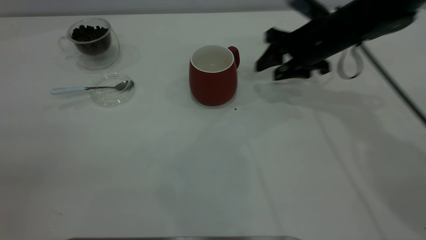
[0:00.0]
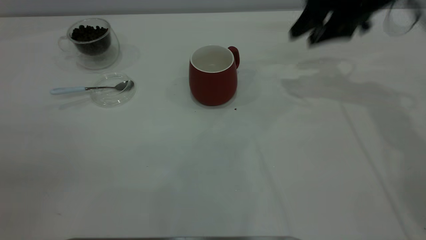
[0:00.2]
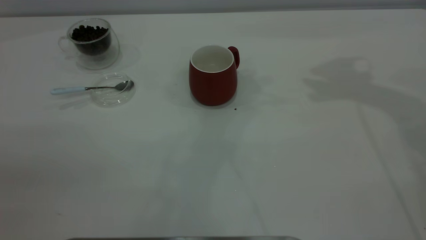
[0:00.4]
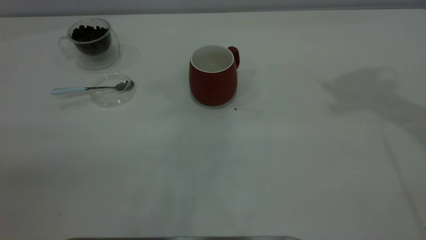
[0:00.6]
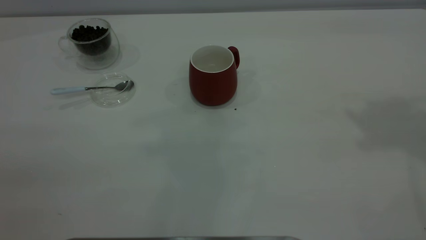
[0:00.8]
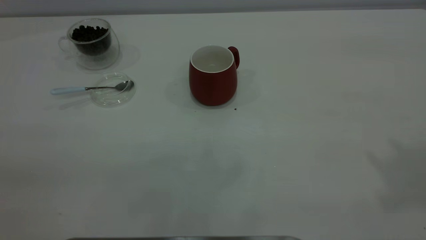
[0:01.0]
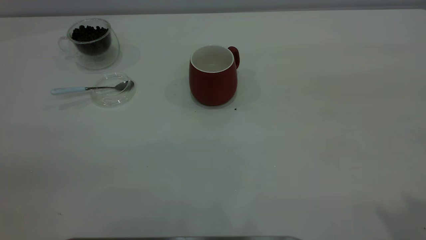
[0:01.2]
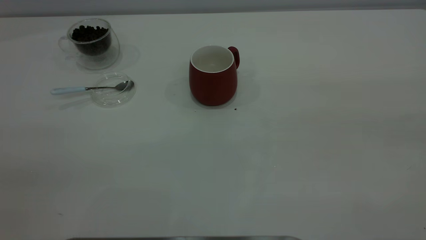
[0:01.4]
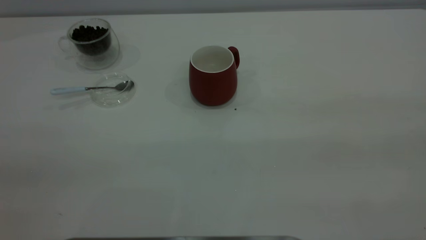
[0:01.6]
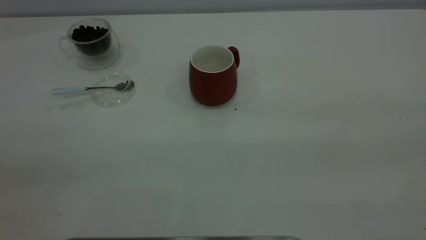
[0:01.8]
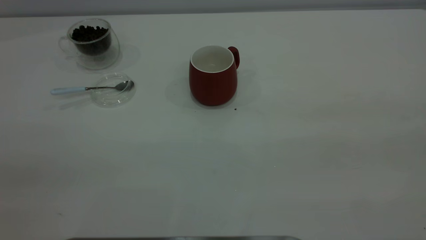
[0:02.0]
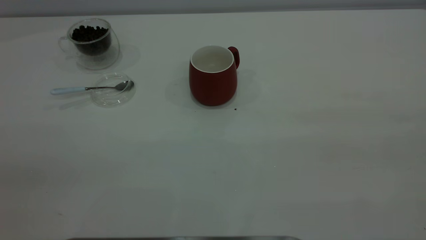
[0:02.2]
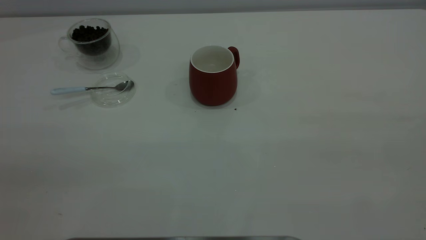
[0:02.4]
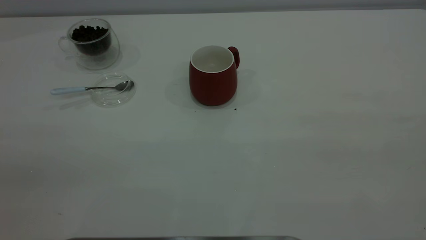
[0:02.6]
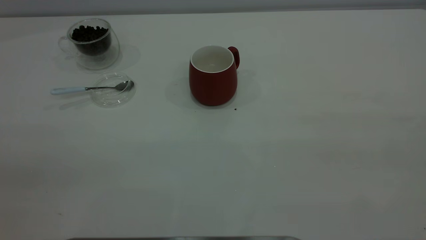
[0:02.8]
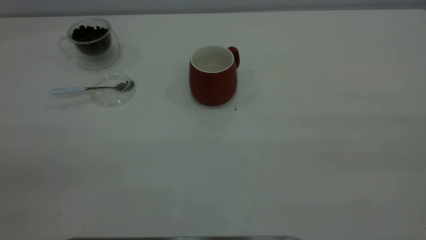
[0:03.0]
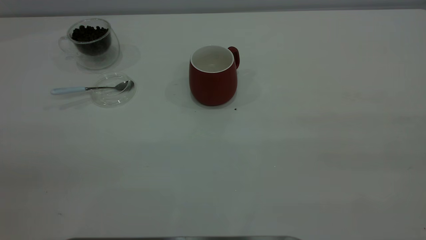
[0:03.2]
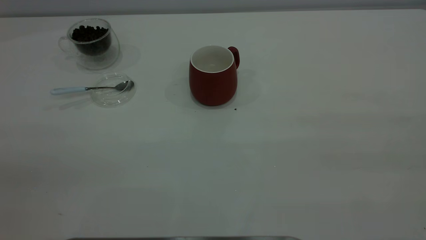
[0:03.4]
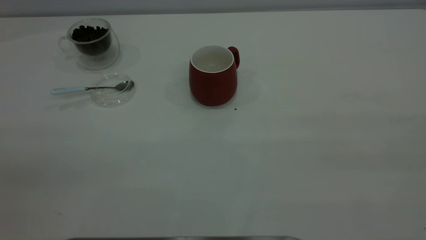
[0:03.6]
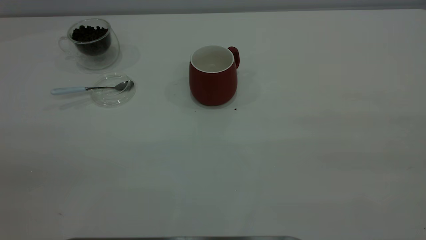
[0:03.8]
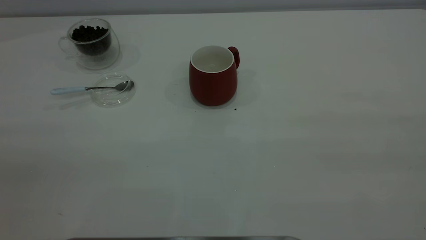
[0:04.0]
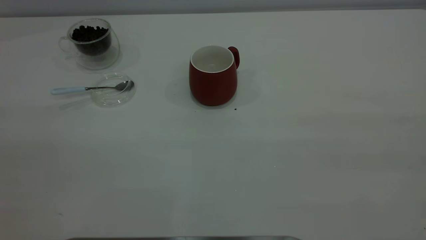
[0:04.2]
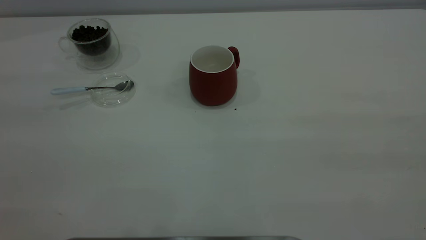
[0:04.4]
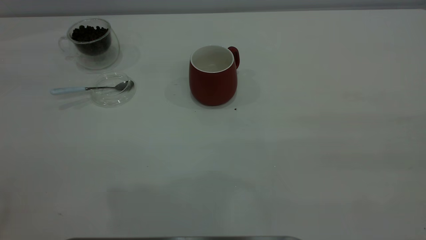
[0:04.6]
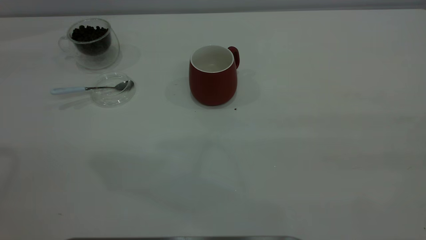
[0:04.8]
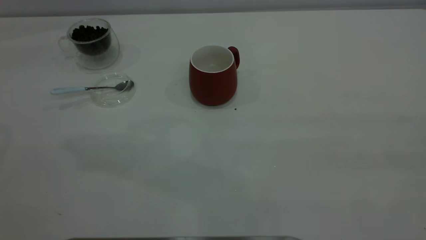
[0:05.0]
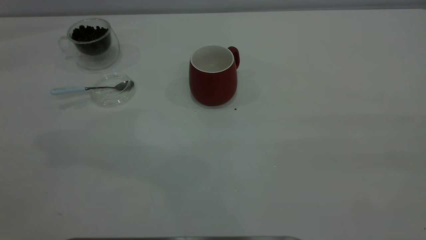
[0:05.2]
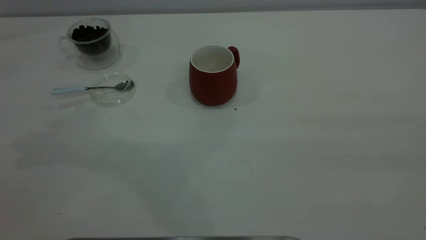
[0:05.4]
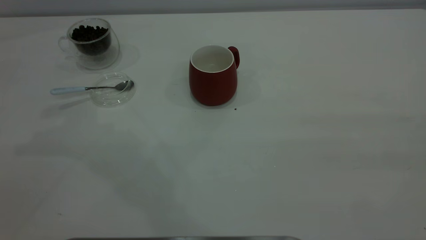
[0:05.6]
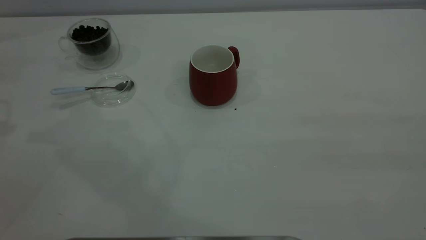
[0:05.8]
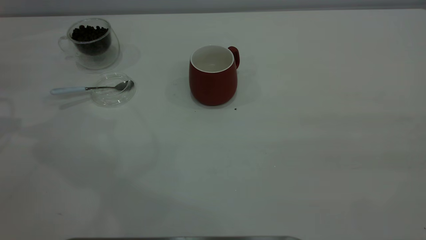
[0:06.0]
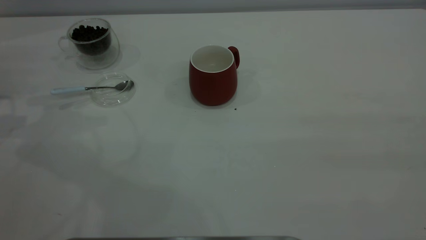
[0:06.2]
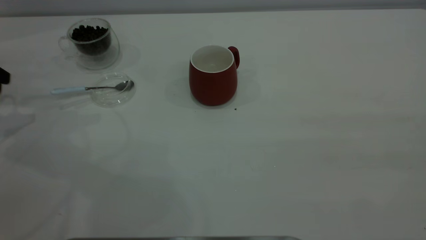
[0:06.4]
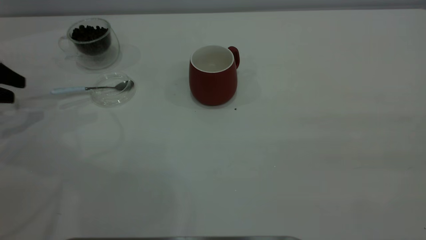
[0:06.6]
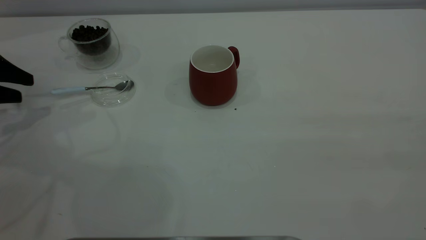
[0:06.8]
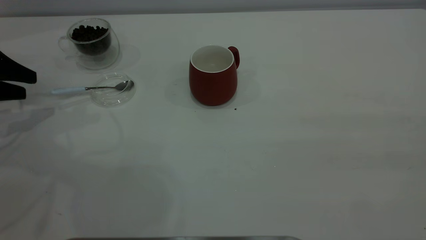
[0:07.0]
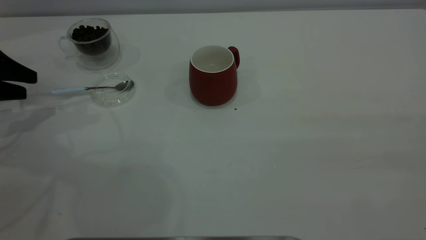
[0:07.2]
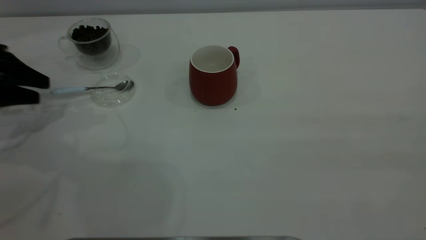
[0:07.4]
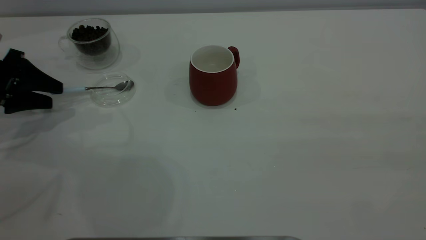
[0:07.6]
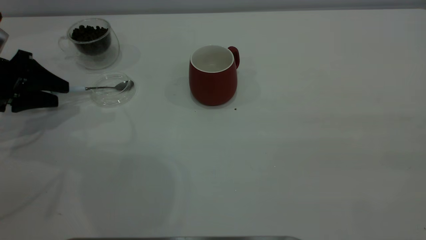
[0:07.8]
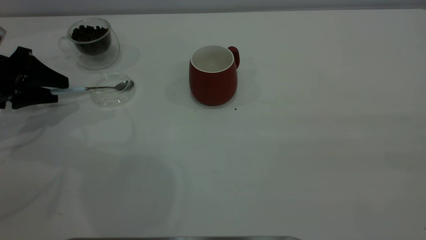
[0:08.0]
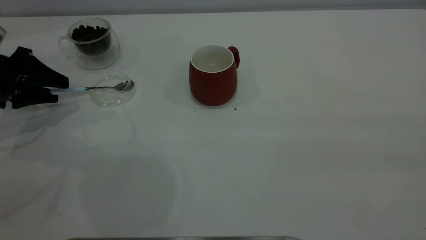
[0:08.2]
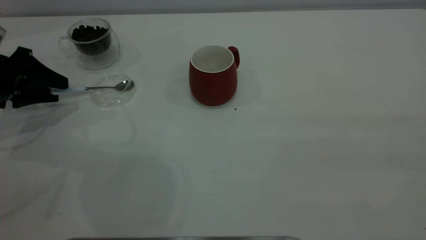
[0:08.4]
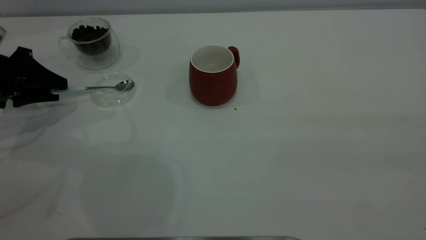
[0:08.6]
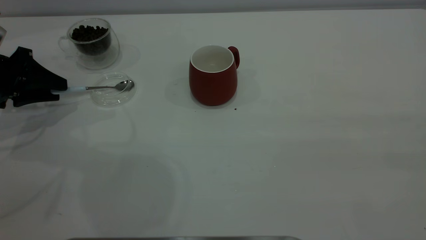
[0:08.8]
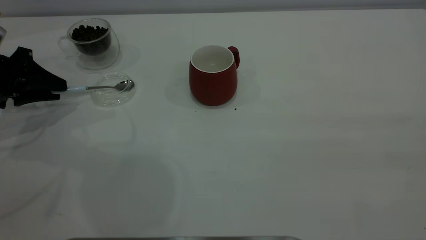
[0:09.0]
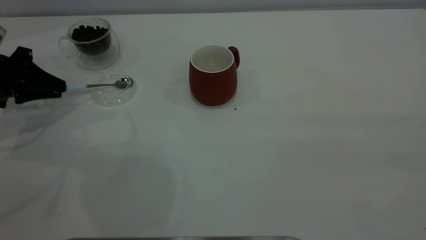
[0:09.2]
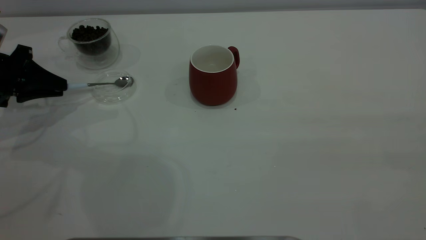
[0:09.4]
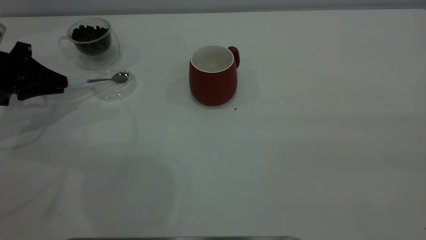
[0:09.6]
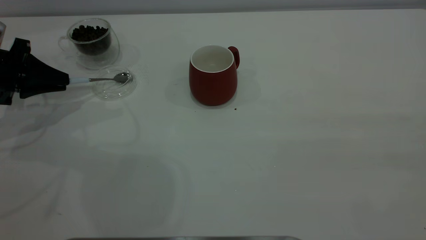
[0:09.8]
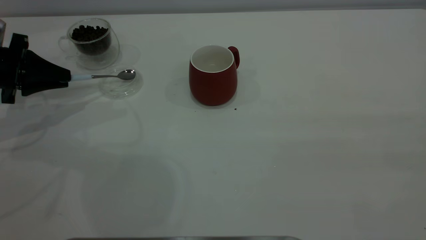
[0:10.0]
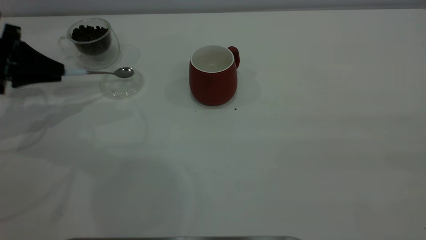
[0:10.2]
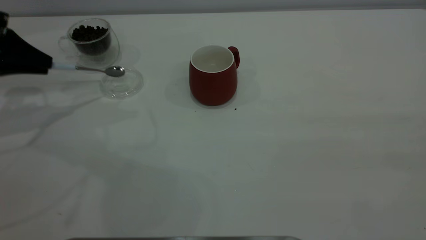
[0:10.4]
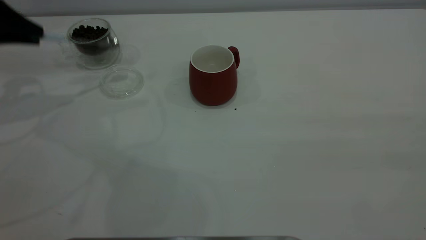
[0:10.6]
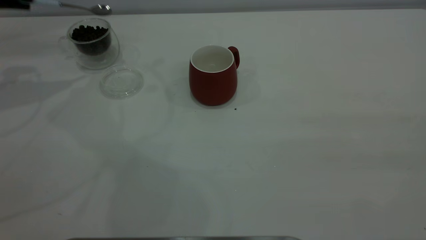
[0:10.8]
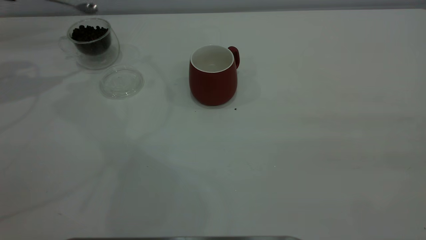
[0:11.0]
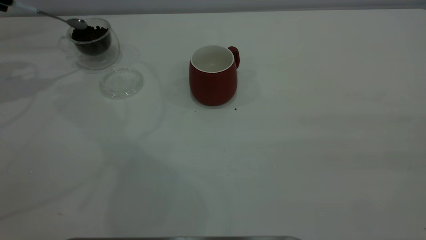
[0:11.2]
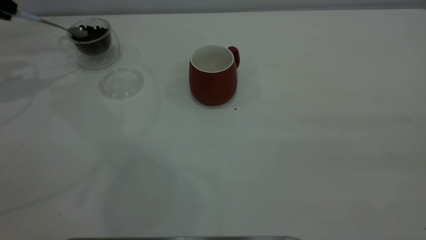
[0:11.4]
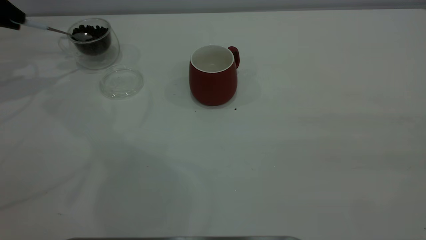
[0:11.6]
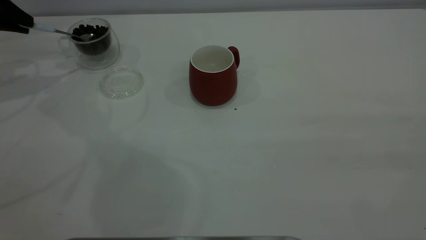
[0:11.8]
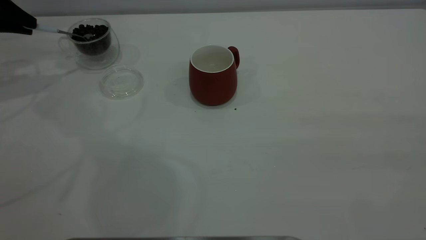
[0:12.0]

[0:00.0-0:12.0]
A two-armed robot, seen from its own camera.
Task of the whole recording: the right gripper place the red cup in the center of the table, the left gripper take the blue spoon from the cup lid and scoop out the coffee beans from the coffee cup and put them into the red cup, the left gripper put the spoon back into the cup lid.
Step, 0:00.0 to 0:10.4: Pick up the spoon.
0:00.0 to 0:01.6: The right gripper heads backward and upward, covering approximately 50 cm.
0:06.0 to 0:07.6: The left gripper heads downward, covering about 10 cm, and opens up.
0:07.6 to 0:09.0: The left gripper closes.
0:09.0 to 0:10.4: The left gripper travels upward by about 5 cm, and closes its fingers.
0:10.4 to 0:12.0: The left gripper goes approximately 5 cm forward, and goes upward and returns, approximately 10 cm each way.

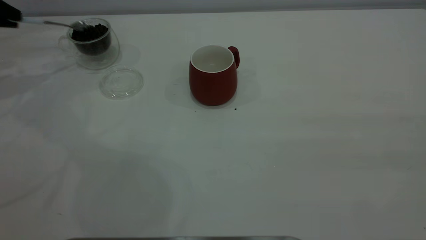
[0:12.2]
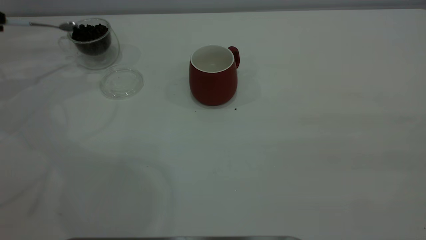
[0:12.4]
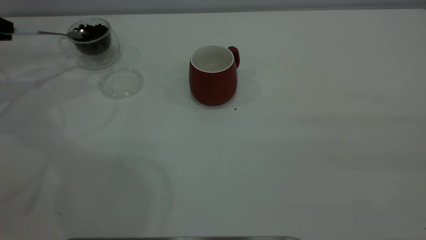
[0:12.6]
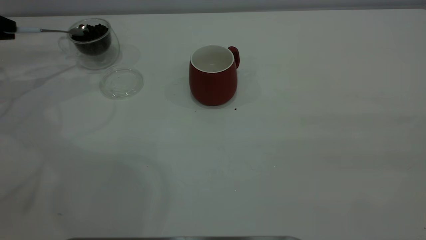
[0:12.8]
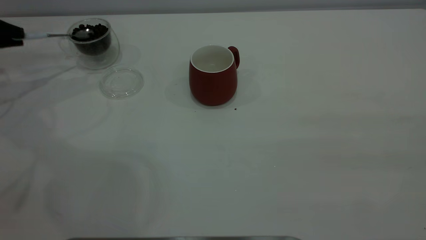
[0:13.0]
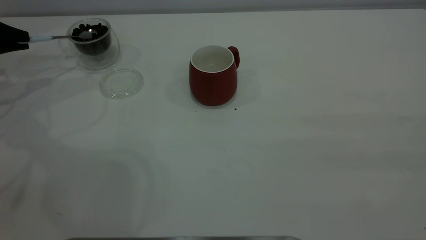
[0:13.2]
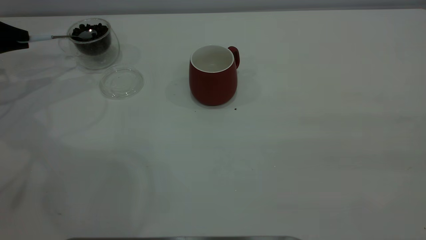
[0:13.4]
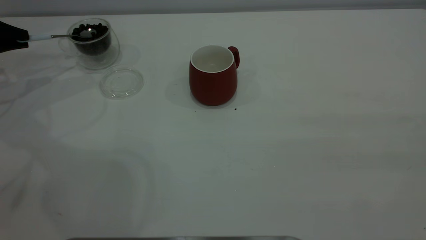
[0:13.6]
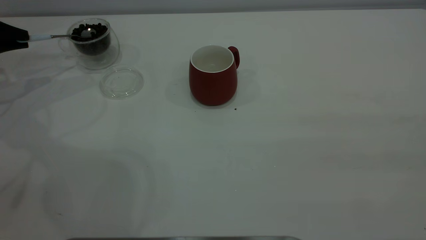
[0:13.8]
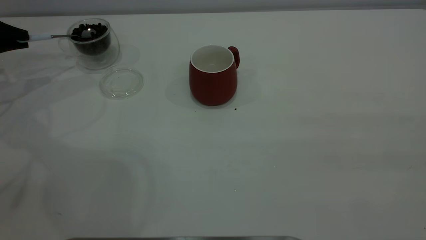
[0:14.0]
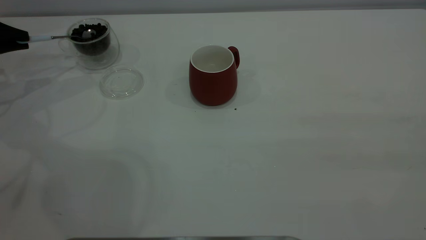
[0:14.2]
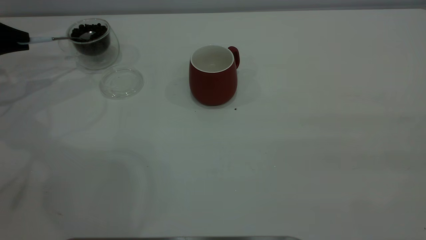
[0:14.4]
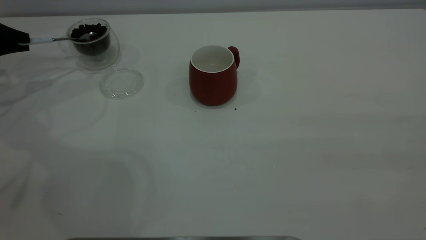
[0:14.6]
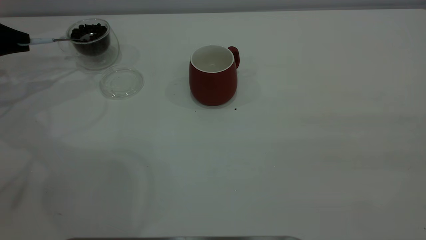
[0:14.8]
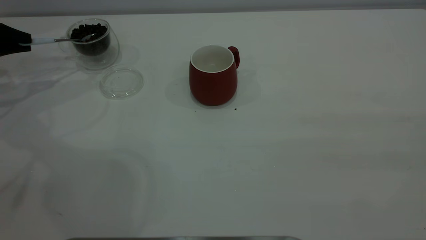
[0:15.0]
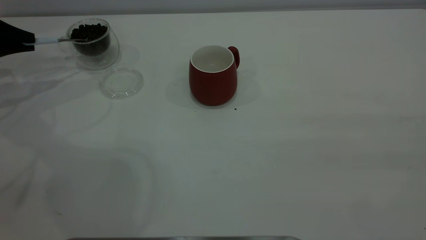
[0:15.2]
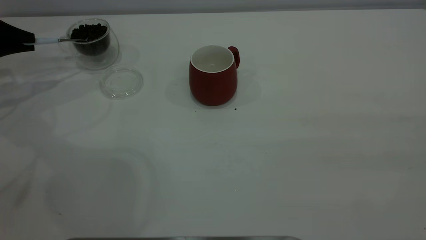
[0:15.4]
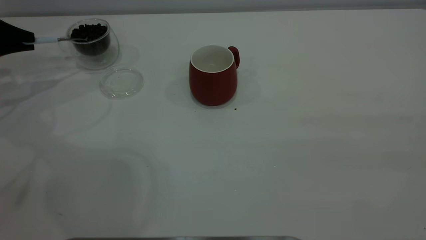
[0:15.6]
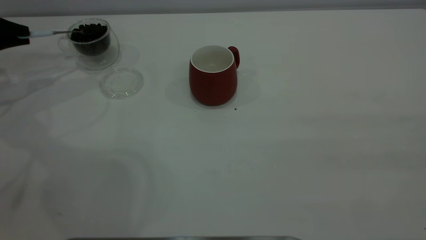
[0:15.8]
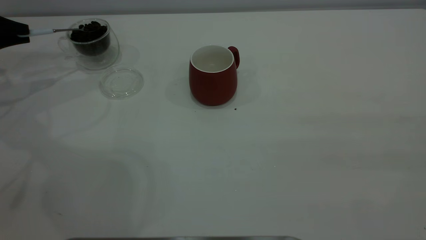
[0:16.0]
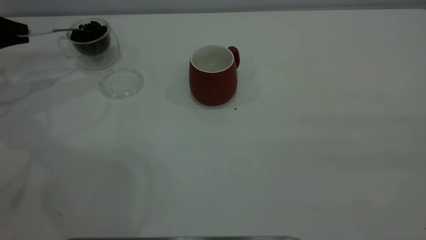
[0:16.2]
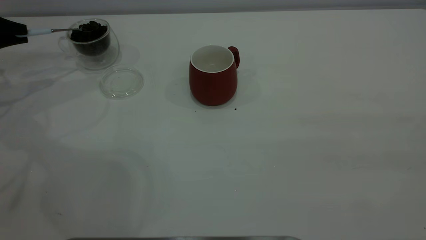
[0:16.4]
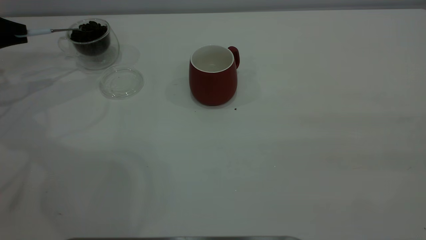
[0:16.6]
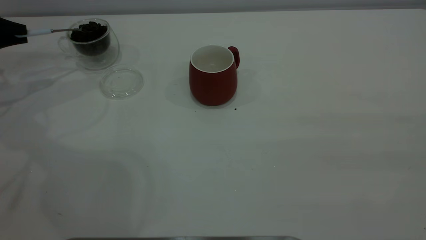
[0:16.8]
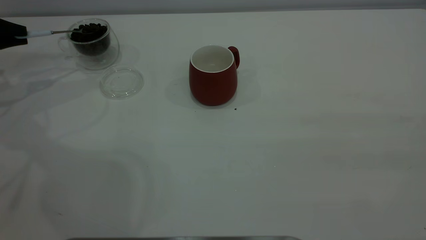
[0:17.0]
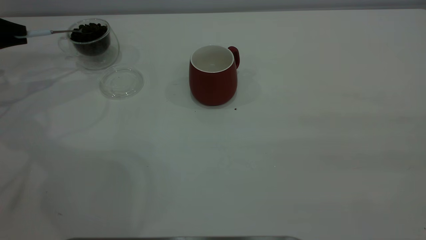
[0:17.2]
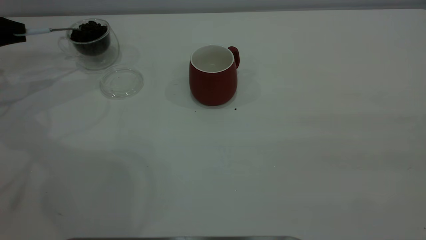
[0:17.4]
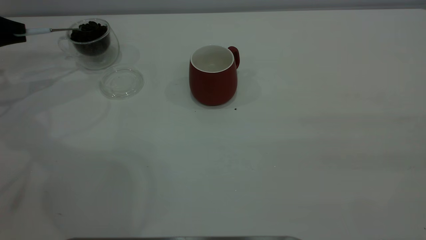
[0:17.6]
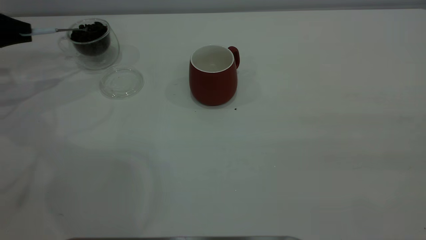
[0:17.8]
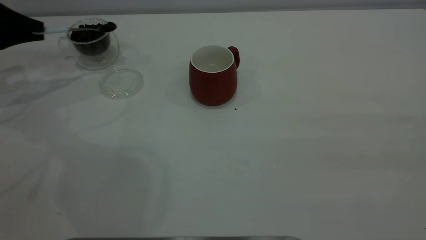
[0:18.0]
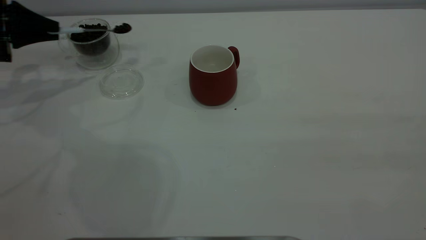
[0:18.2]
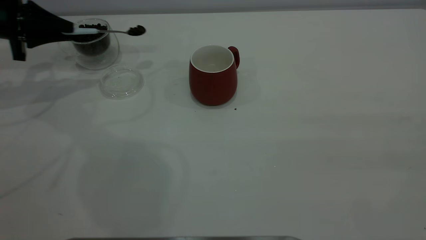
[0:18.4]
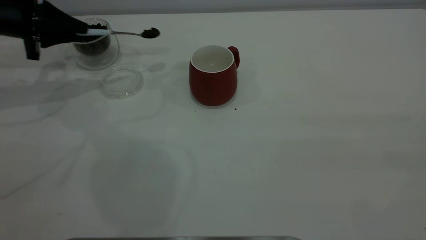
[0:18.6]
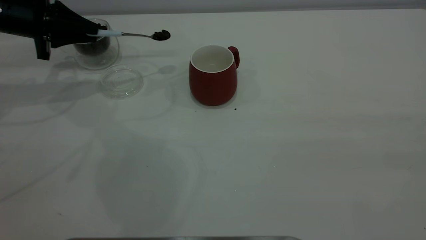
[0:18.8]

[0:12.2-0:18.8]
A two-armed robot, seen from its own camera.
Task of the whole recording: the right gripper place the red cup in the center of the table, the left gripper take the blue spoon from the cup lid and scoop out the coffee beans from the coffee cup and put them into the red cup, the left gripper put the spoon back into the cup lid.
0:12.2 to 0:13.8: The left gripper moves downward, about 5 cm.
0:13.8 to 0:15.4: Both grippers stay about where they are.
0:15.4 to 0:17.2: Both grippers stay put.
0:17.2 to 0:18.8: The left gripper goes roughly 10 cm to the right.
